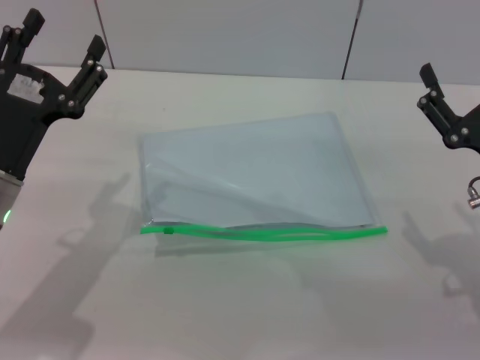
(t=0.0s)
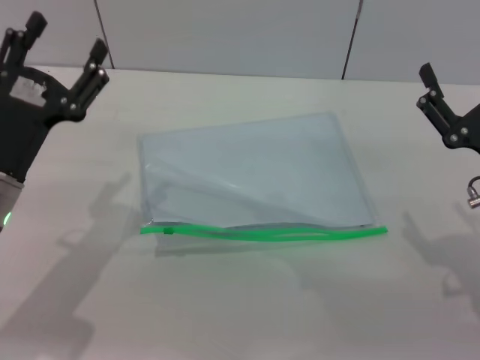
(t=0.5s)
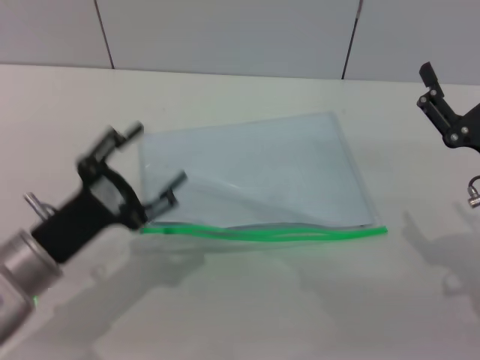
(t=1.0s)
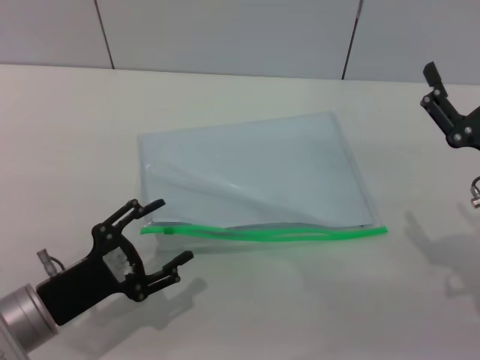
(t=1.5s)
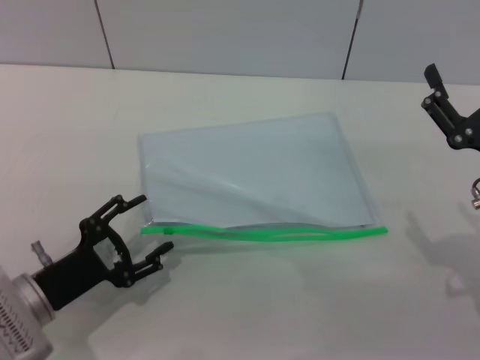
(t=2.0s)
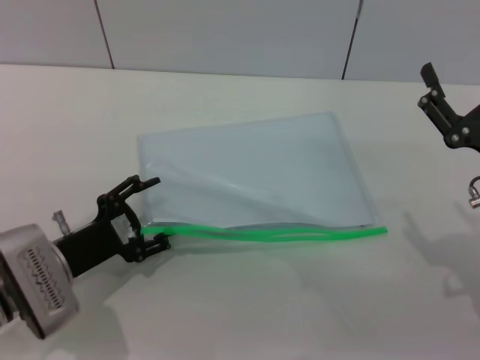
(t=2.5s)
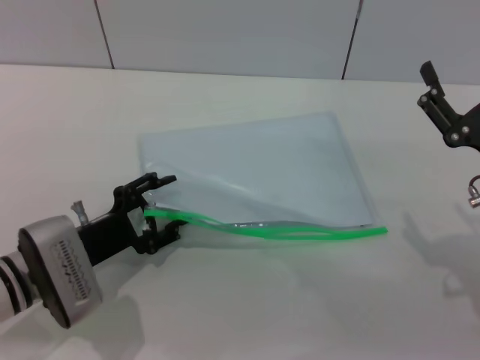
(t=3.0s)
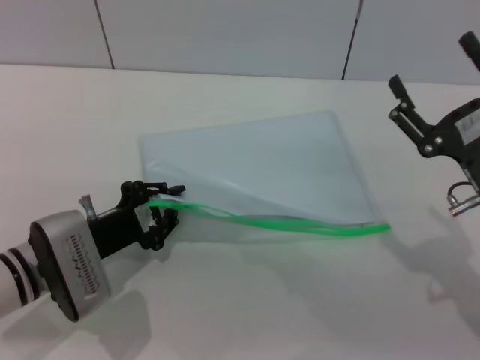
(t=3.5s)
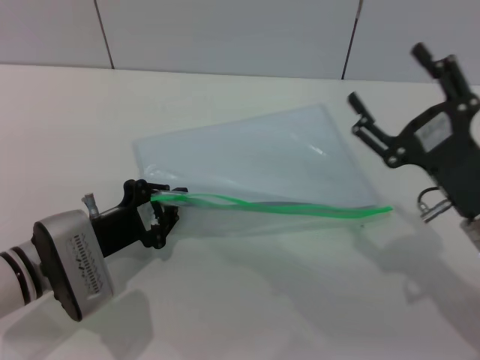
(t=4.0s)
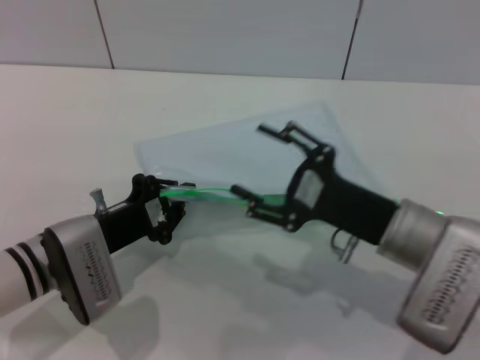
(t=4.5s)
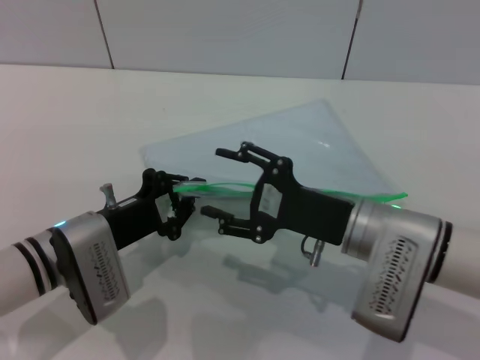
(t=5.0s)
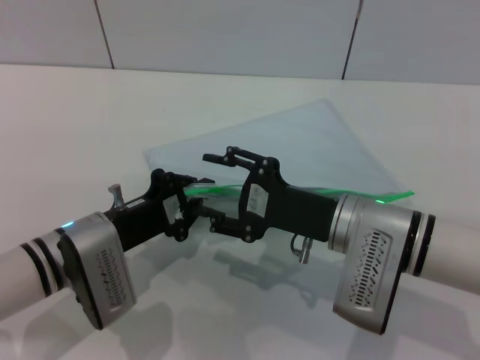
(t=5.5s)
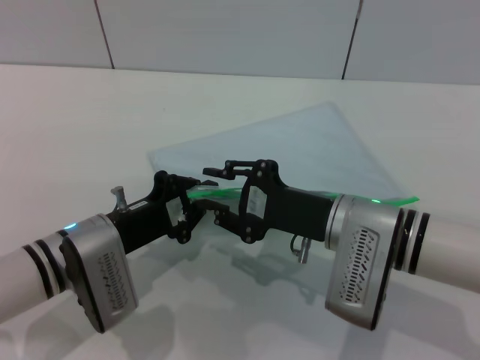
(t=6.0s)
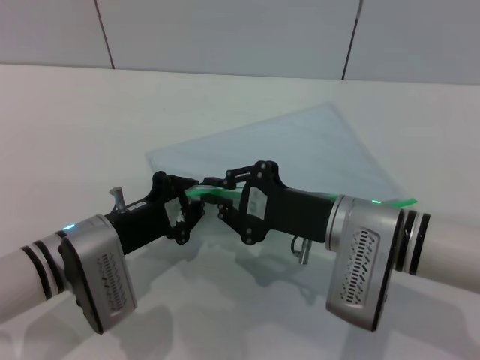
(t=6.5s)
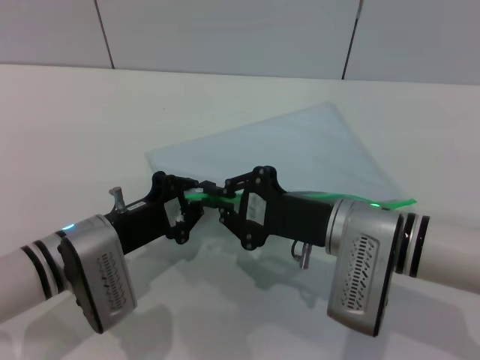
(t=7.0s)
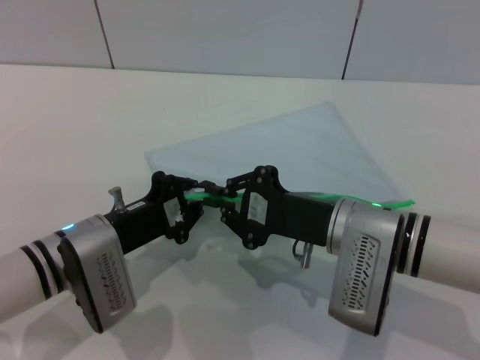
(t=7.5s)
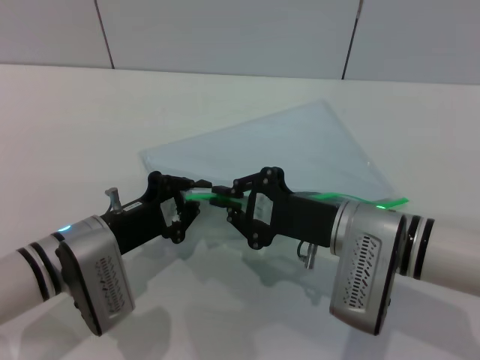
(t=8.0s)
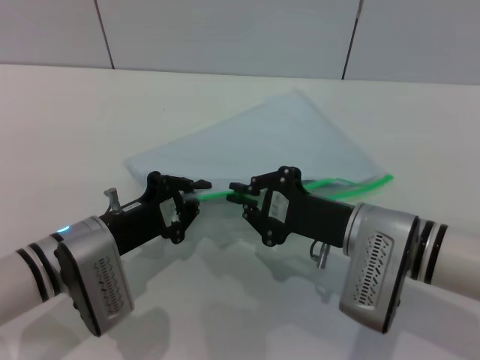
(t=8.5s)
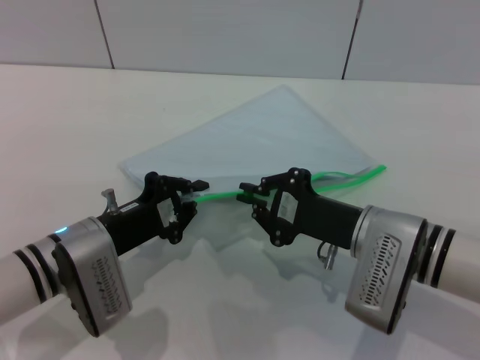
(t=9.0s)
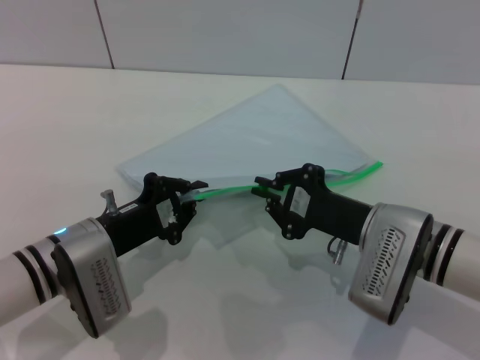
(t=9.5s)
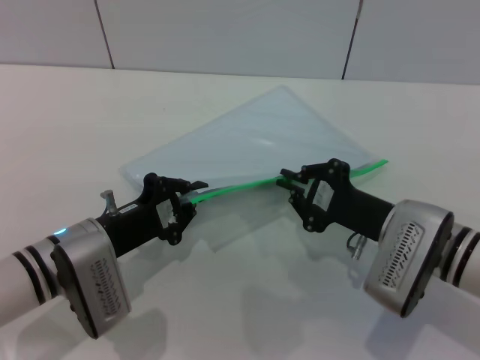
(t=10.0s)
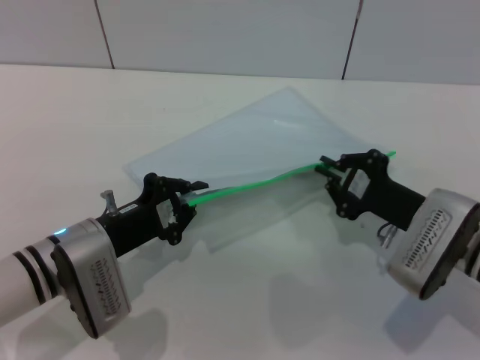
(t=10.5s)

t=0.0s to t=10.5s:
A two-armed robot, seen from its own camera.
Step, t=0.0s to t=4.0s: Pick up the transparent plastic bag with the left gripper.
t=0.0s to t=2.0s: The left gripper shifts roughly 10 cm downward and backward.
t=2.0s to t=4.0s: The left gripper moves forward, about 5 cm, and closes up.
t=4.0s to t=6.5s: The right gripper shifts roughly 10 cm to the left, and closes its fingers.
t=6.5s to t=8.5s: The grippers stay close to where they were, moving slightly.
t=8.5s to t=10.5s: The right gripper shifts roughly 5 cm to the right.

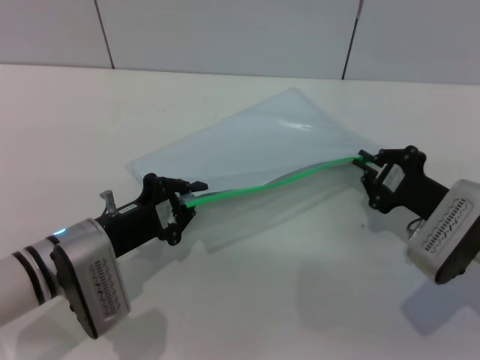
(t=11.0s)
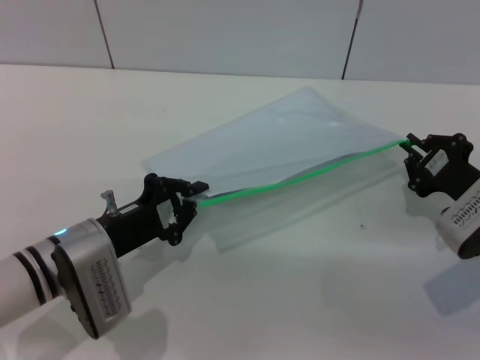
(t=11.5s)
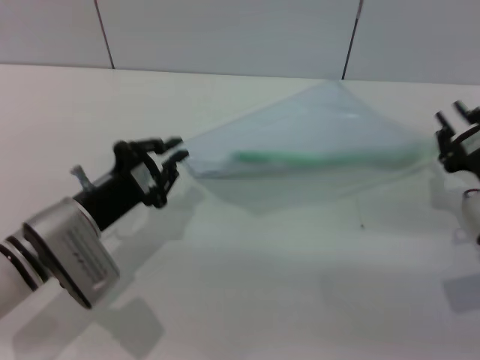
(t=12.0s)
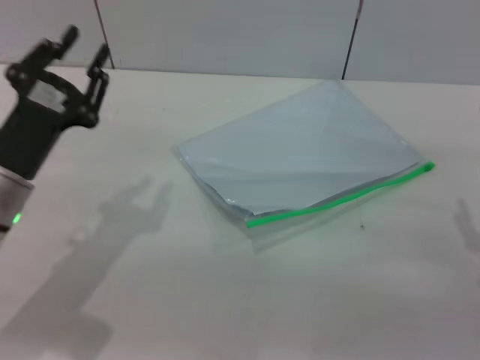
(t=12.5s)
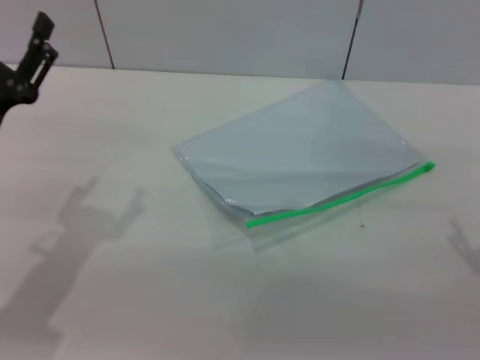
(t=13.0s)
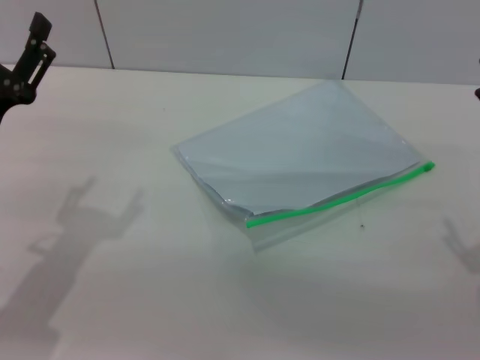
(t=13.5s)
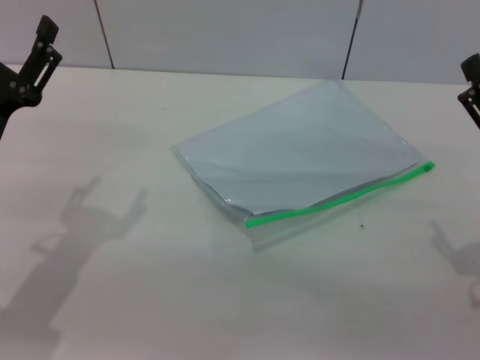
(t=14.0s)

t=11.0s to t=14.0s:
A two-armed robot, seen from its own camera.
Step, t=12.0s to t=13.5s: Place the transparent plastic bag.
t=11.0s to t=12.5s: The right gripper is displaced backward by some 5 cm, and opens up. The left gripper moves upward, roughly 5 cm.
t=12.5s to t=14.0s: The left gripper opens.
